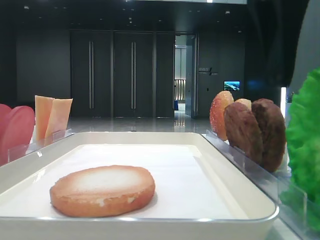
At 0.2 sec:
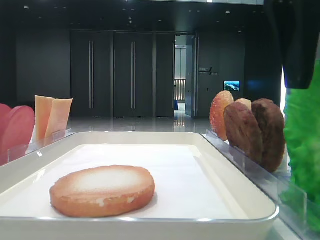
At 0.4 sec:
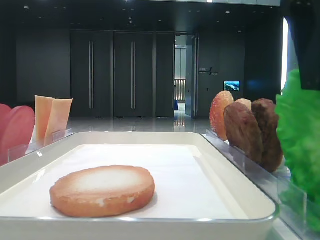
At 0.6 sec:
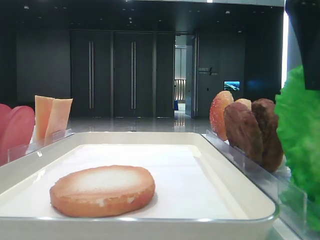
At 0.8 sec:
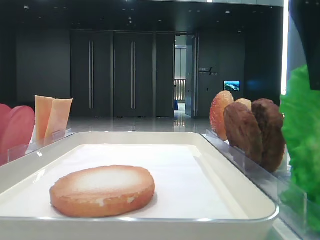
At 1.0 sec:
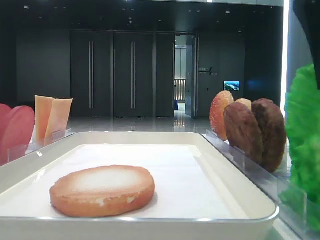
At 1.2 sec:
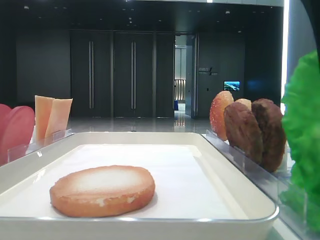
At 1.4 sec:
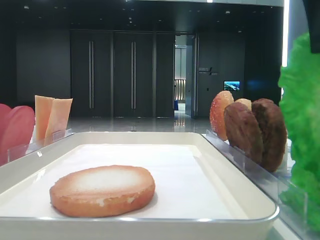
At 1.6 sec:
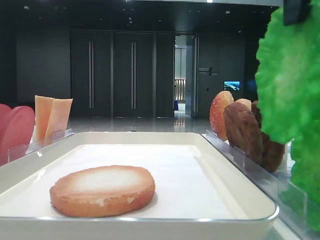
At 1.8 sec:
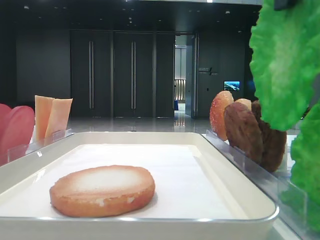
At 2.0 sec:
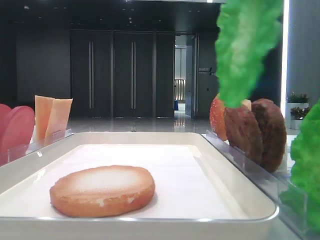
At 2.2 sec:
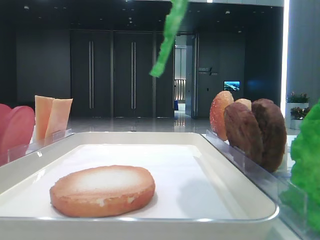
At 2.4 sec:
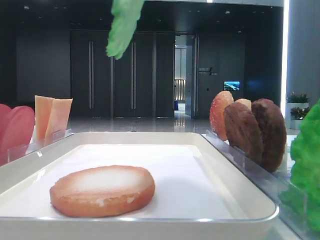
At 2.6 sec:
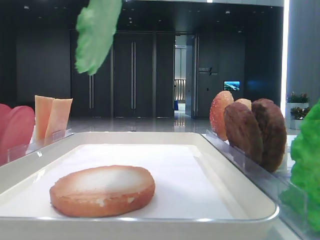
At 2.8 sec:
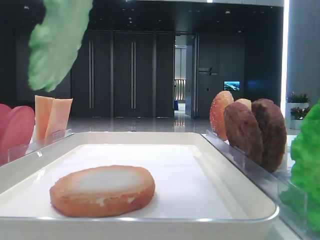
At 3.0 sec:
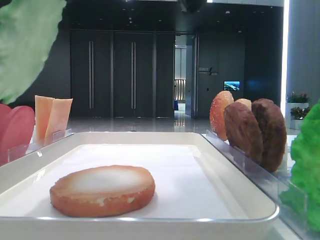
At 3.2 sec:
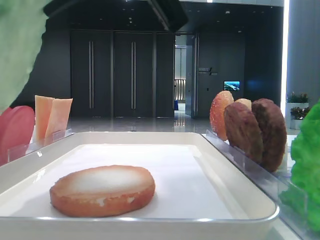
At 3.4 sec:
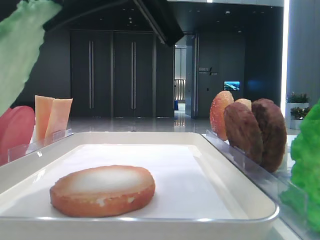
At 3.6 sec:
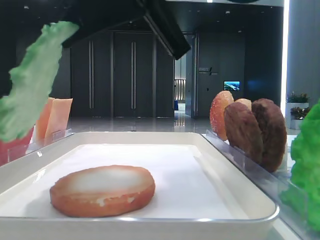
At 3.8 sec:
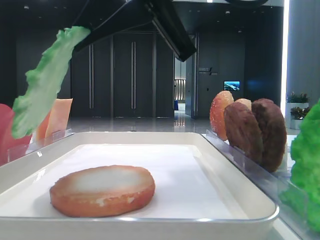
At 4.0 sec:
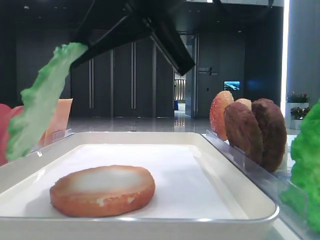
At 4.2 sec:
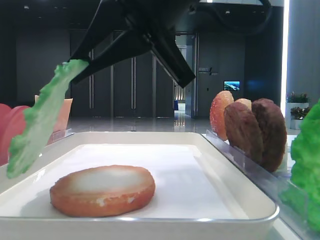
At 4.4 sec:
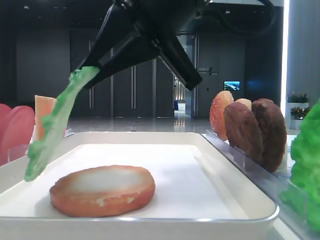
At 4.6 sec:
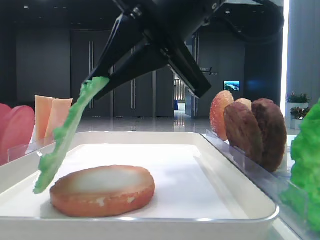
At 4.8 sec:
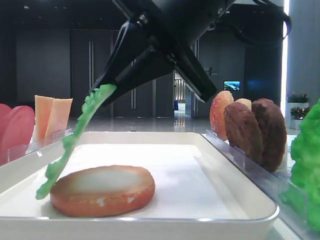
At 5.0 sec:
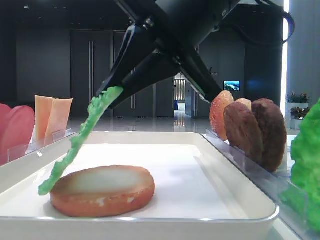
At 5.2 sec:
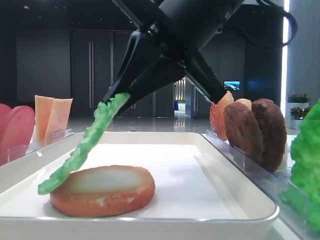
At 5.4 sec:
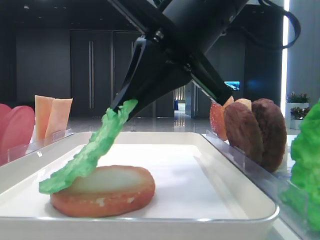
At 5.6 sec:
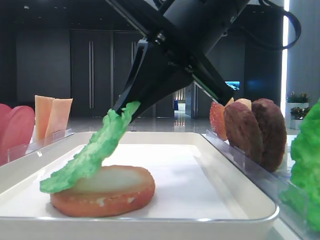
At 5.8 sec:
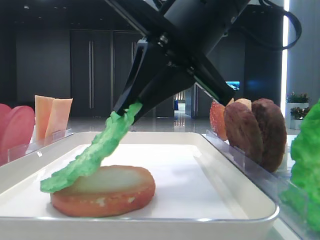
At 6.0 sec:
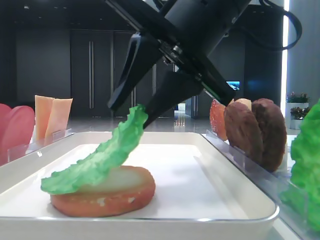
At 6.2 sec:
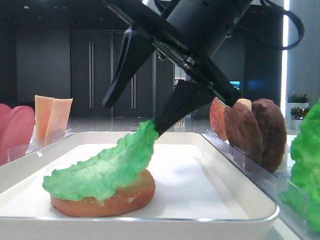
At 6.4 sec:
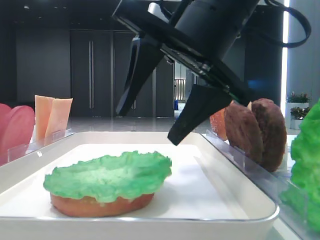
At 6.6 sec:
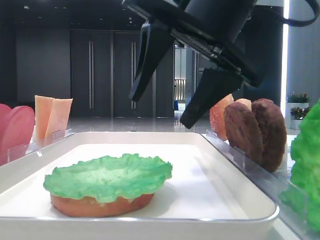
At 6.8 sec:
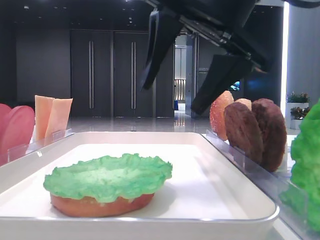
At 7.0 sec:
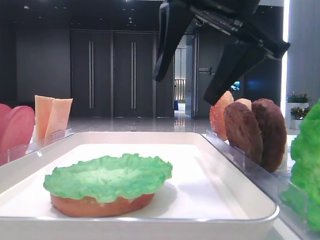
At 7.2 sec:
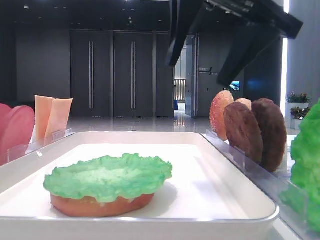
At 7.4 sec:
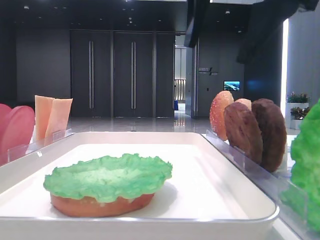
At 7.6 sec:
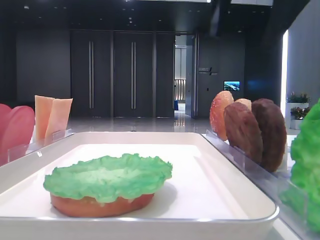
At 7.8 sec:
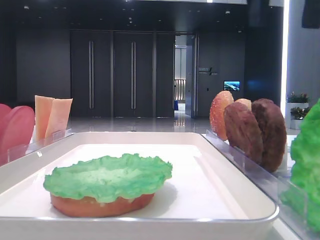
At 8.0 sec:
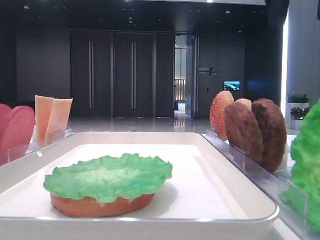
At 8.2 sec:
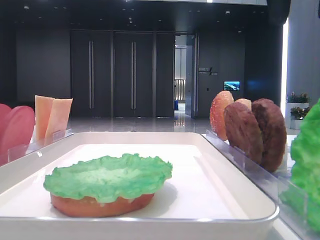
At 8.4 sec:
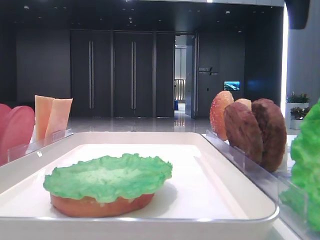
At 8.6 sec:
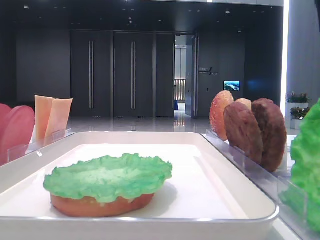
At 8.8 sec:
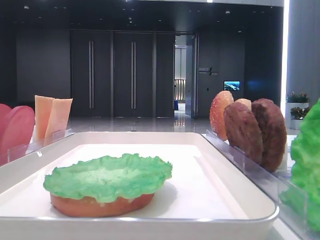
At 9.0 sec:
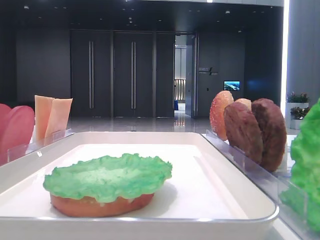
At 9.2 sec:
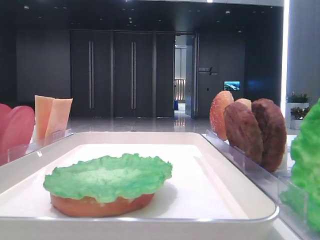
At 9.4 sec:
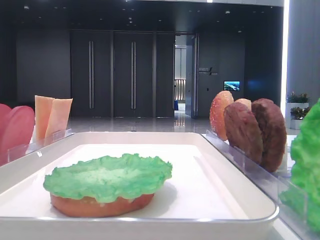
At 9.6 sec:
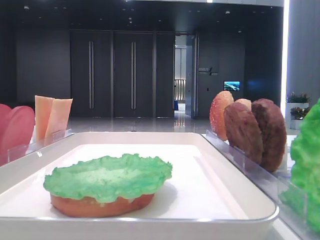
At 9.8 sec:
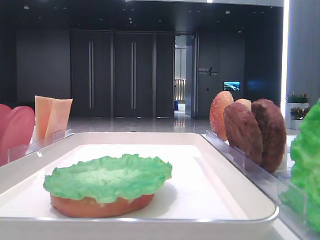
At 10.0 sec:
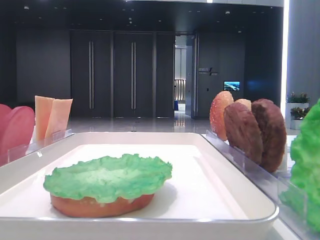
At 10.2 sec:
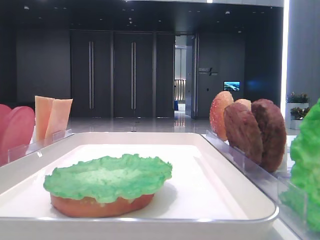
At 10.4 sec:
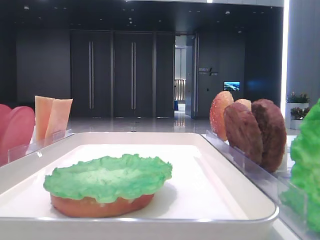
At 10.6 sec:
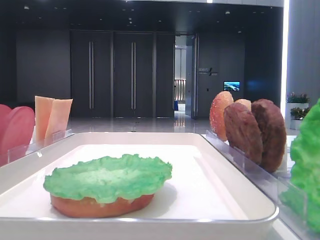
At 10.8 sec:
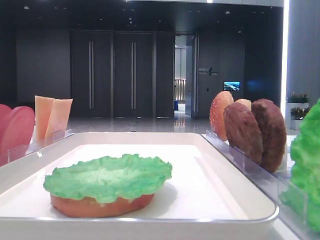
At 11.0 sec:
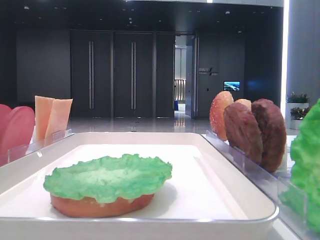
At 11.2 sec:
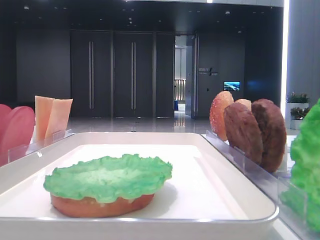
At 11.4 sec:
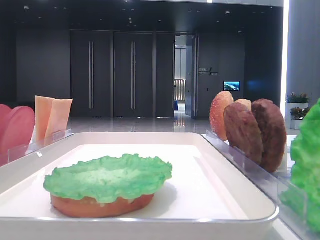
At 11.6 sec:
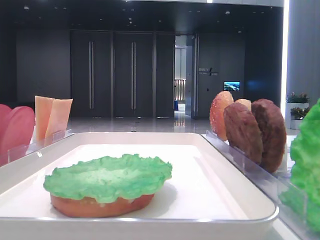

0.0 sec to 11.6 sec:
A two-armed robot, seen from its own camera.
Step, 0.8 sec to 6.2 sec: Place the lettuce leaf on the bread slice with the right hand.
0.0 sec to 1.4 sec: The right gripper closes.
1.4 sec to 2.8 sec: The right gripper moves to the left, roughly 10 cm.
2.8 sec to 4.4 sec: The right gripper moves downward and forward, roughly 10 cm.
4.4 sec to 5.8 sec: The grippers move only a little.
5.8 sec to 7.2 sec: The right gripper is displaced upward by about 5 cm, and opens up.
7.2 sec to 8.8 sec: The right gripper is displaced to the right by approximately 20 cm.

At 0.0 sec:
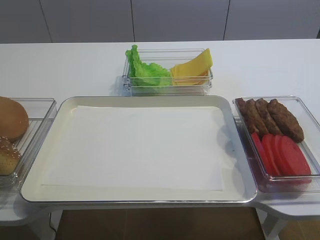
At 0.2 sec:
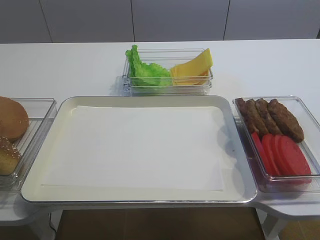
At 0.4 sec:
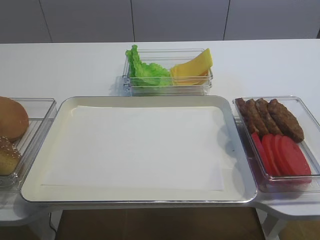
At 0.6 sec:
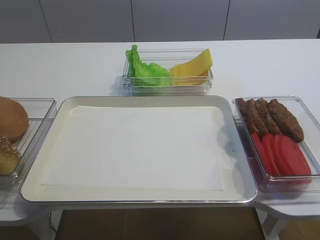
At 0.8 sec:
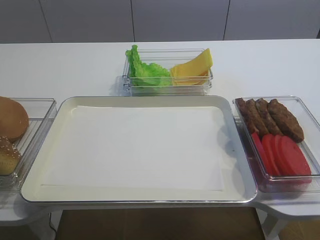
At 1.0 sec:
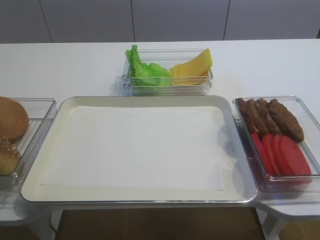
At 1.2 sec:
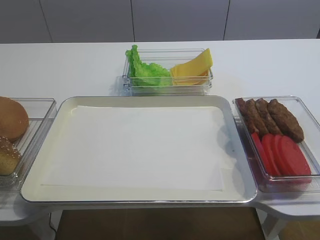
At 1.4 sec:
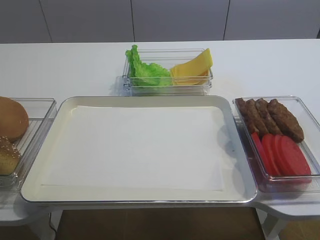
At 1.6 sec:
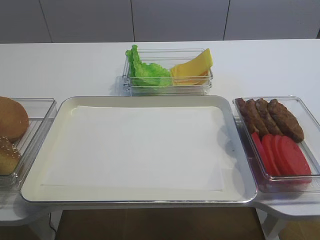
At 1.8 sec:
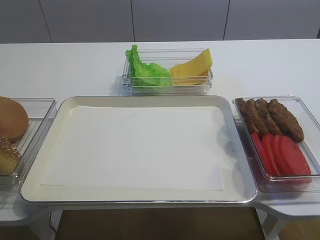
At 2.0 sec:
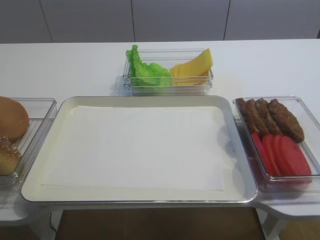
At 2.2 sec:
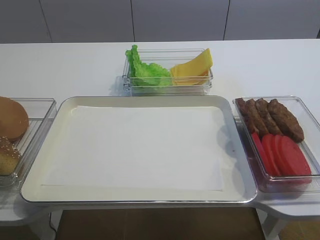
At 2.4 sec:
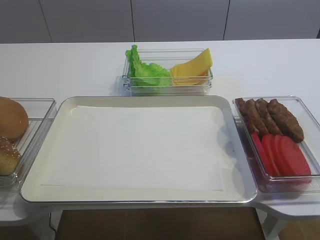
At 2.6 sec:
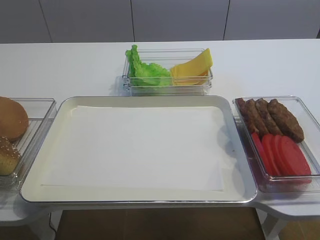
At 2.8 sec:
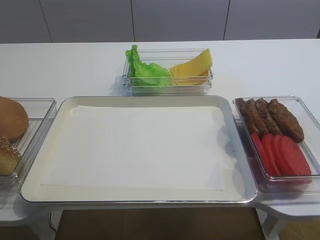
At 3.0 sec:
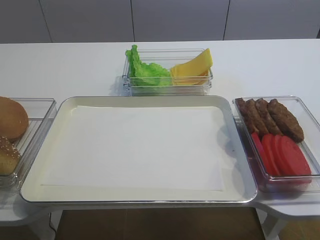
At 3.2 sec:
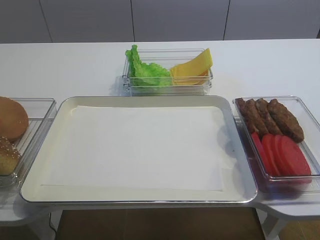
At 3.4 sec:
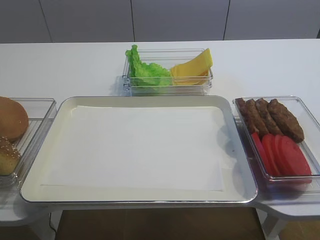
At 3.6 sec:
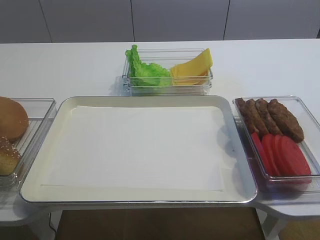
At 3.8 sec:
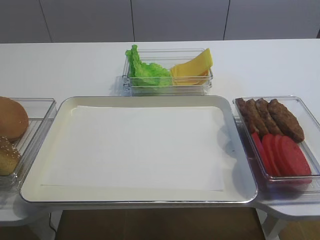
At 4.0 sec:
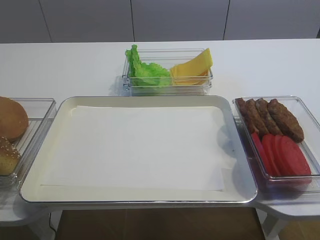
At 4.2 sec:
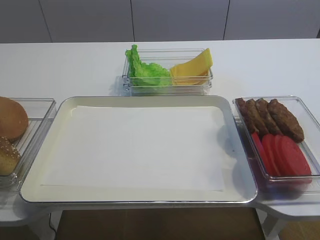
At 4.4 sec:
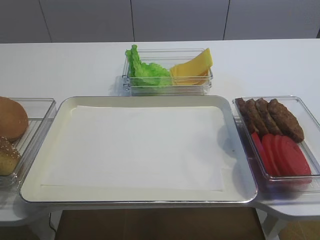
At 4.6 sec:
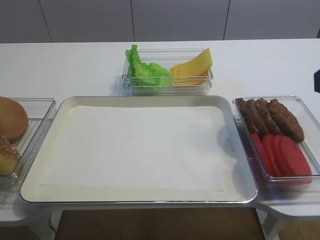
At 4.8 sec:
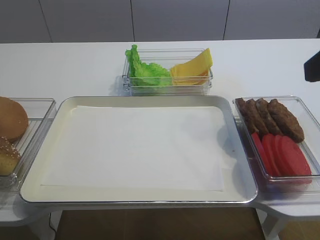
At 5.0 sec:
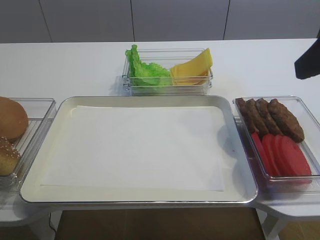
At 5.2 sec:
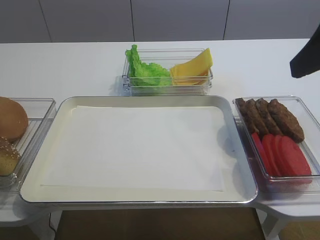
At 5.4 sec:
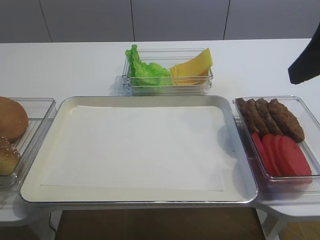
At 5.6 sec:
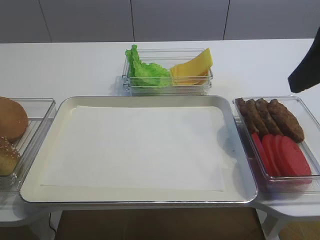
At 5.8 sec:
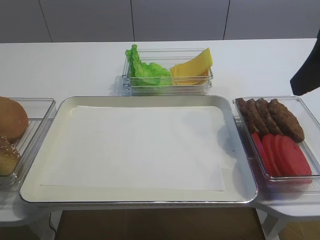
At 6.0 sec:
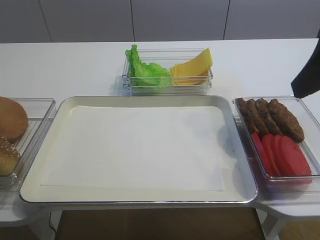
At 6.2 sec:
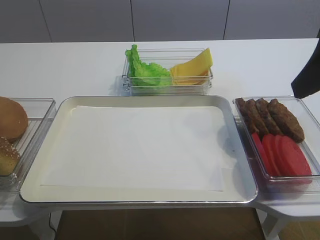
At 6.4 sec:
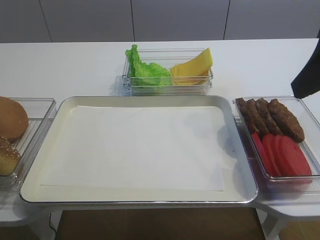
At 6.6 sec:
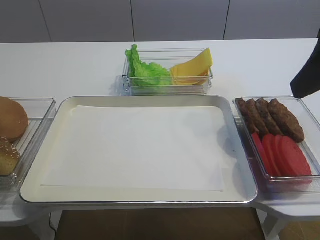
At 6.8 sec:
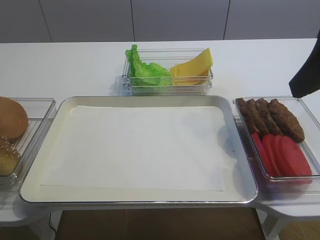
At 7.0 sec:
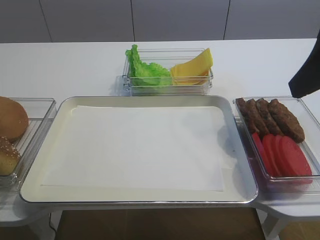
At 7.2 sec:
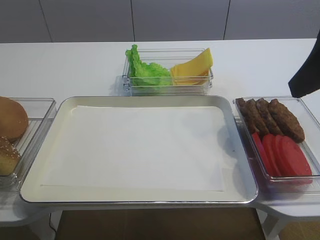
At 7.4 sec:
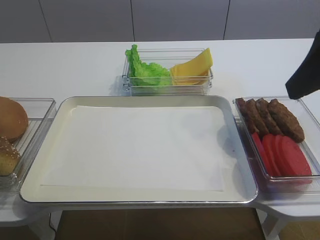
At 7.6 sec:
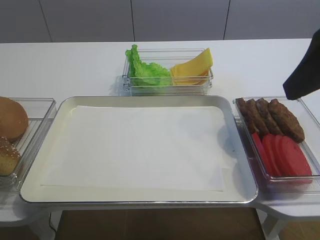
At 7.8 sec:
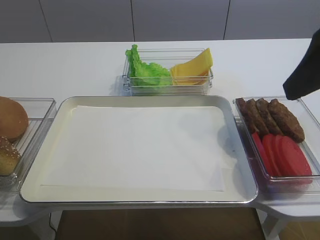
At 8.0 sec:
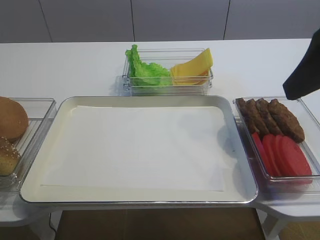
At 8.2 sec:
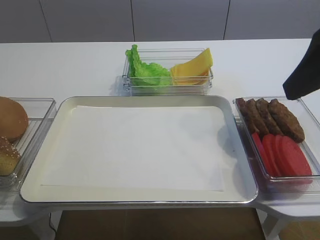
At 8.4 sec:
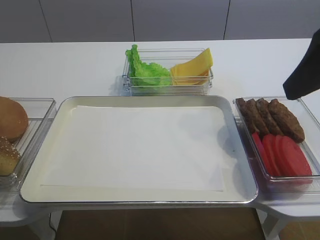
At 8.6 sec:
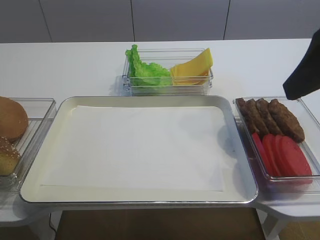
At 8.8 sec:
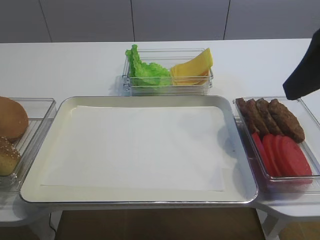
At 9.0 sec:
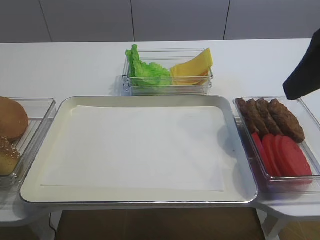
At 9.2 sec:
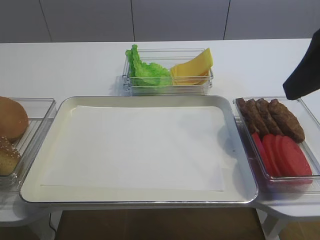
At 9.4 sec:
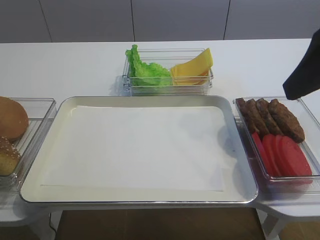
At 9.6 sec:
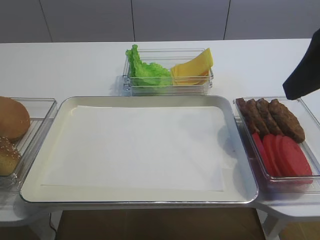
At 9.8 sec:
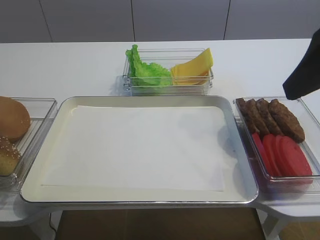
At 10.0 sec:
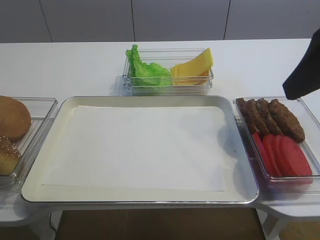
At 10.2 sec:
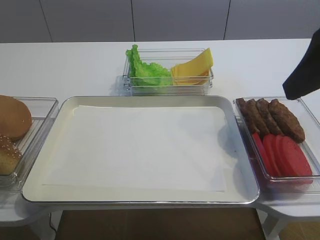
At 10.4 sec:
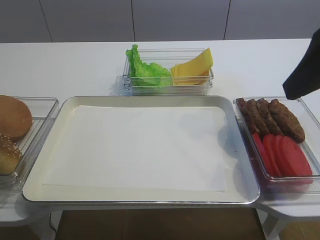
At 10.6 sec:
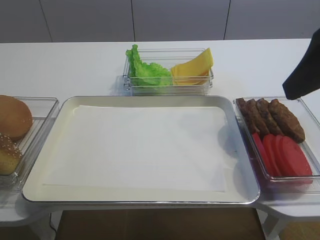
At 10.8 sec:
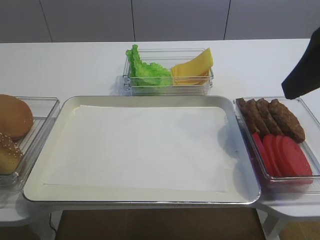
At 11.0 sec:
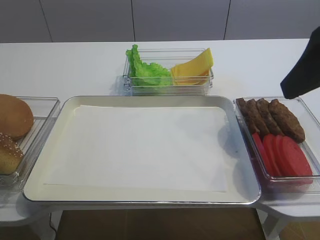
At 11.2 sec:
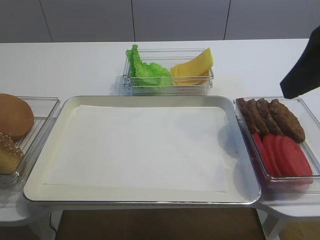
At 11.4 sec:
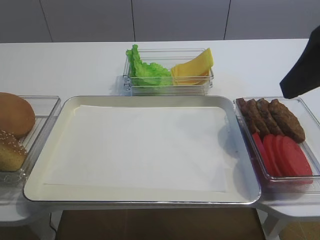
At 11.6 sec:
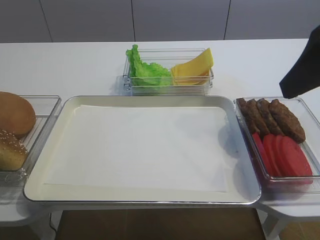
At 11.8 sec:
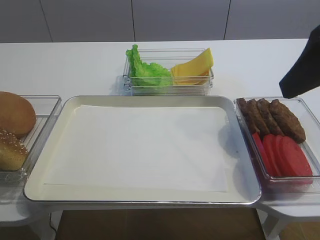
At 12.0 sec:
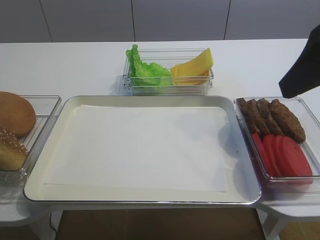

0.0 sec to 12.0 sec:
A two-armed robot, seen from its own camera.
4.4 sec to 6.0 sec: The right gripper shifts about 10 cm forward.
9.0 sec to 10.4 sec: Both grippers stay about where they are.
10.4 sec to 12.0 sec: Neither gripper changes place.
